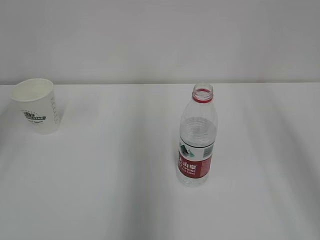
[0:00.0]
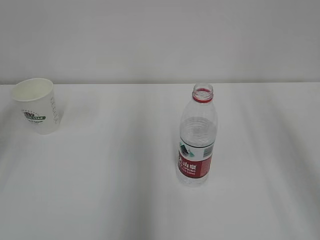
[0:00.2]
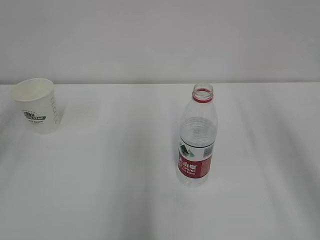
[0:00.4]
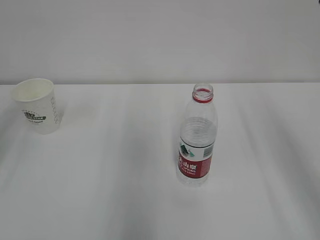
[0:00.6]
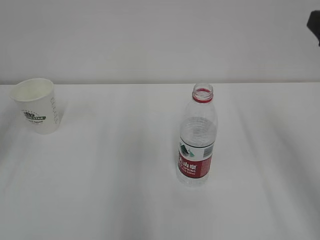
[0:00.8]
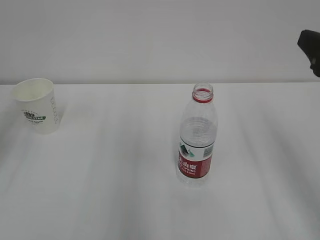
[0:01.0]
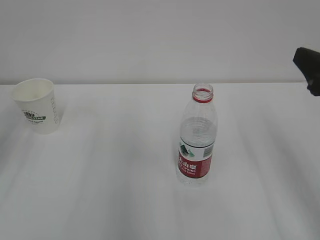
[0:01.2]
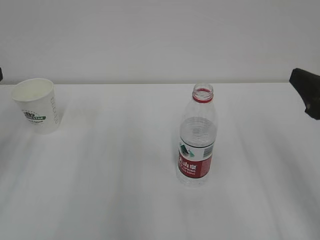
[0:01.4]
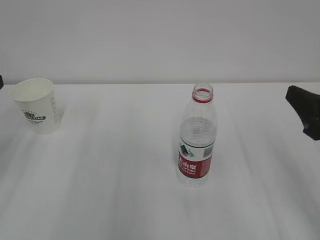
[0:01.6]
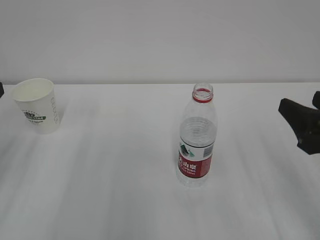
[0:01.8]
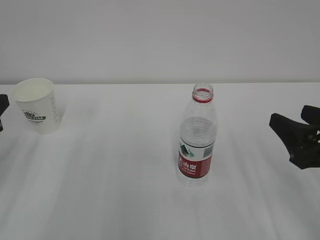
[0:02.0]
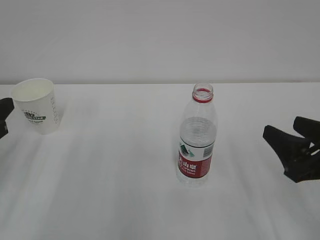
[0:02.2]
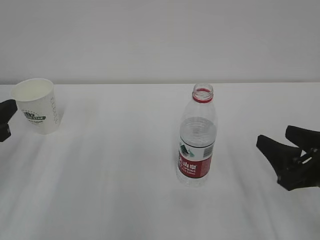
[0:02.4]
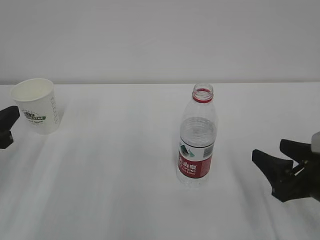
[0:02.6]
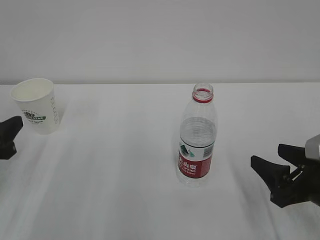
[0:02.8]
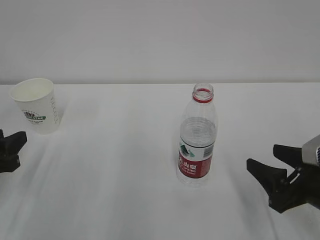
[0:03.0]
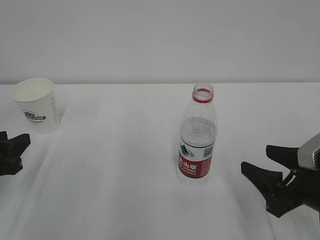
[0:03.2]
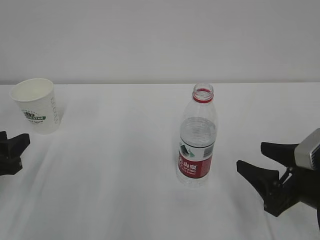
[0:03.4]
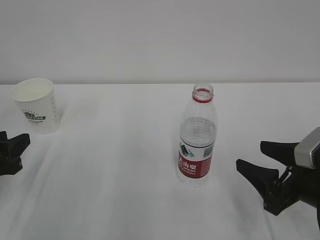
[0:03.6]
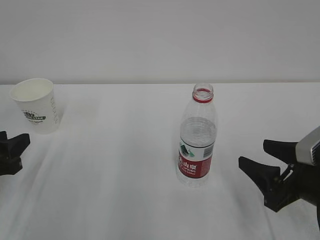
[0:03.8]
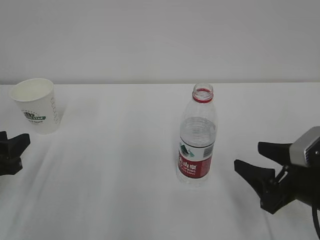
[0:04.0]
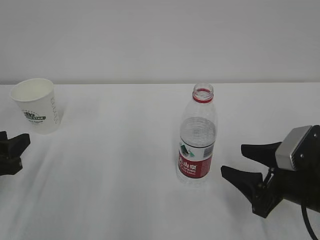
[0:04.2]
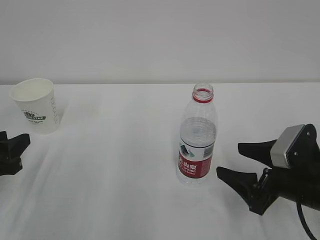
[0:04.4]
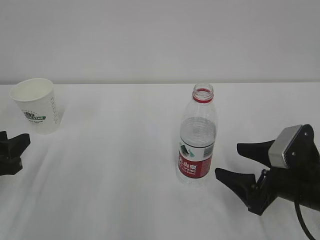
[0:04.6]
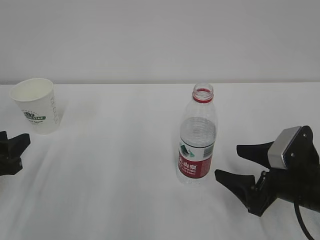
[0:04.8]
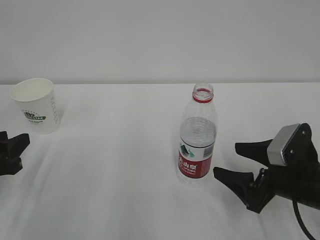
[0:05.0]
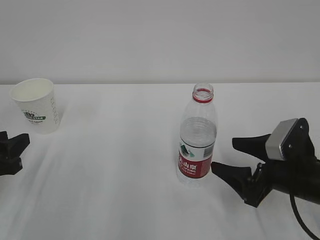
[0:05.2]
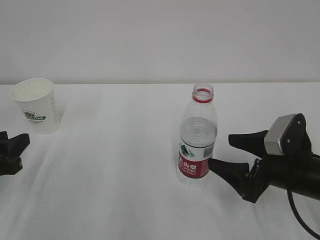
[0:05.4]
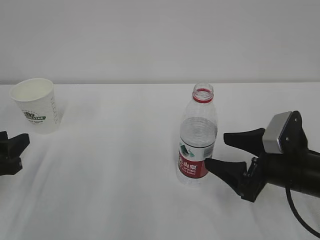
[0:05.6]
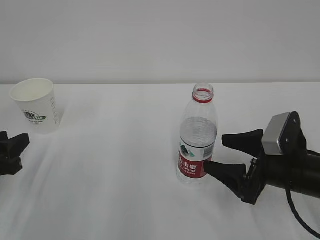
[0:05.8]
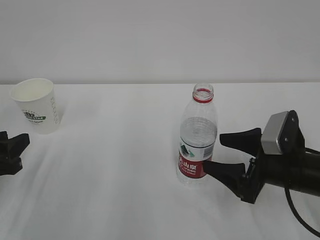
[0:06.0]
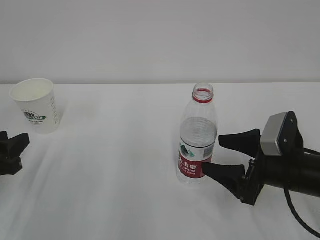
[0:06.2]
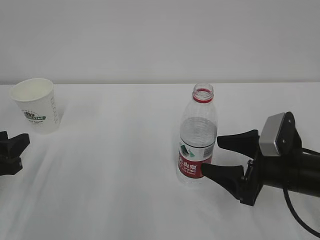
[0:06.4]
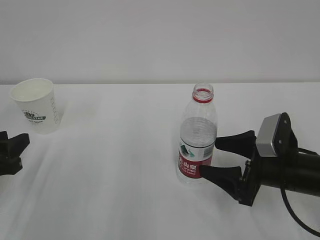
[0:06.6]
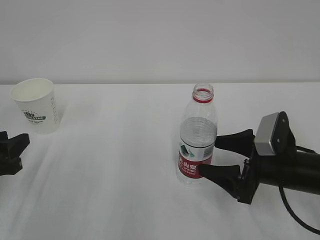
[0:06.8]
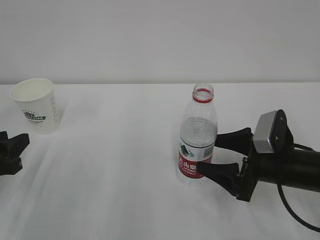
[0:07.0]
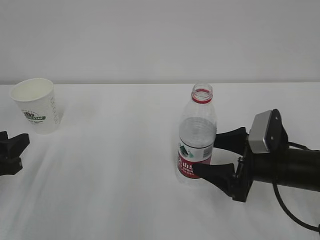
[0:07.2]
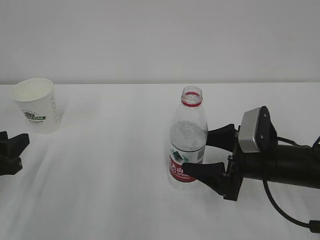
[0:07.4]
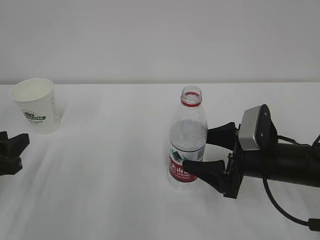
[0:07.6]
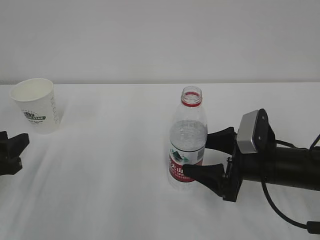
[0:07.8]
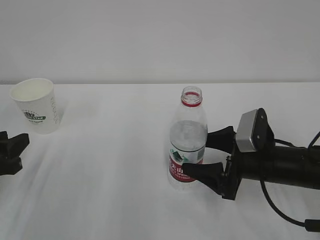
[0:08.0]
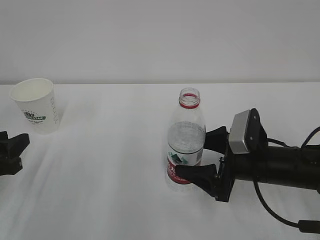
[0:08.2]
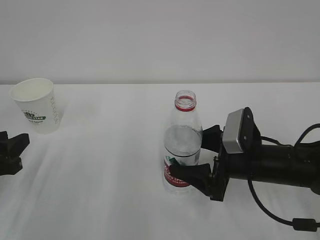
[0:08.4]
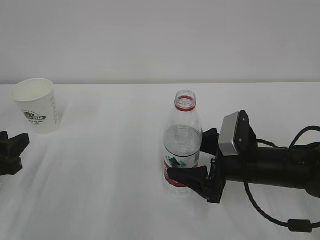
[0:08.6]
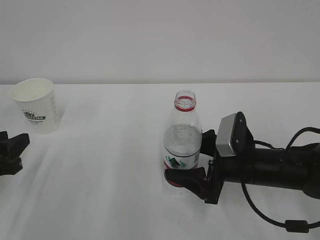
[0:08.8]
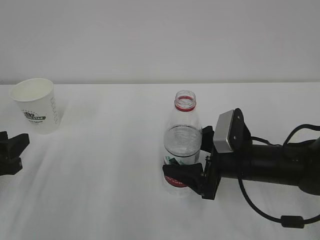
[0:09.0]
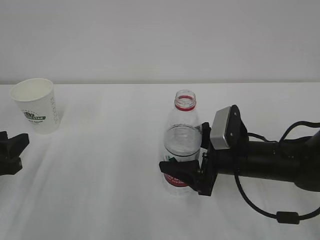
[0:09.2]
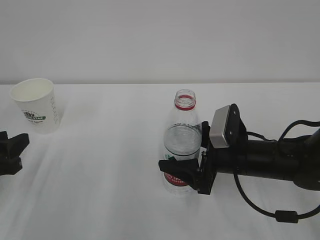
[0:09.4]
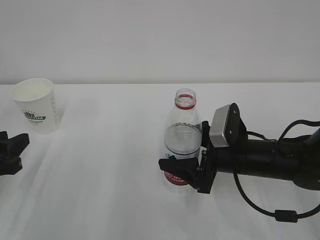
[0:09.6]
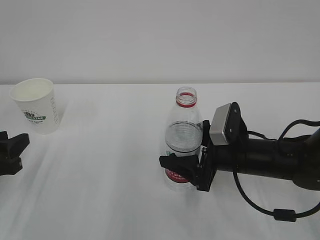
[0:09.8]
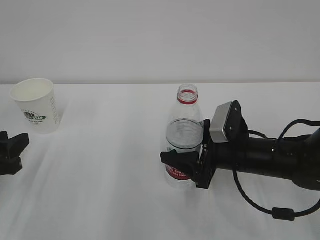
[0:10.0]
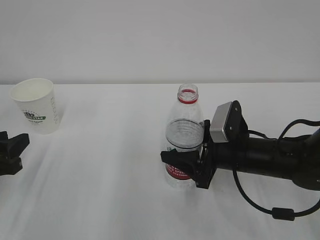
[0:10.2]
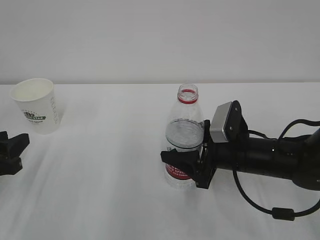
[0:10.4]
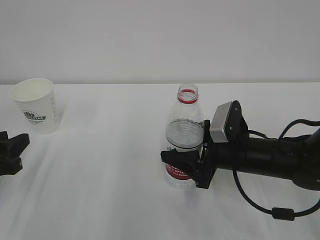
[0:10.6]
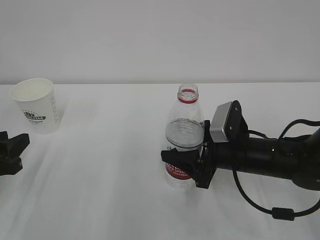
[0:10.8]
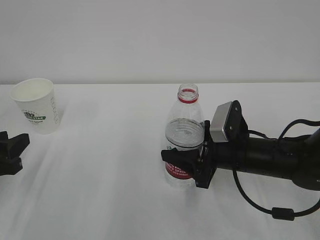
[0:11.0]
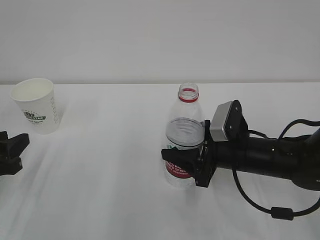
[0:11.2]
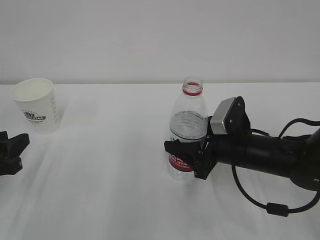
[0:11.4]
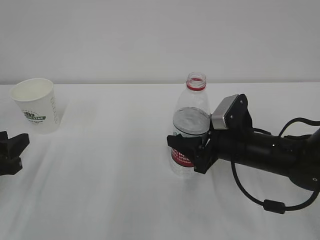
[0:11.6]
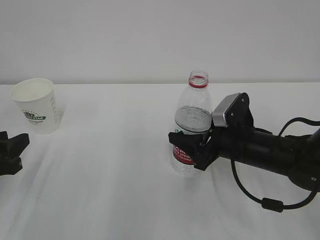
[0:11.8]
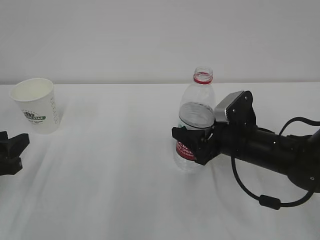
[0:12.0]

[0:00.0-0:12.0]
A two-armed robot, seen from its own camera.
0:00.0 to 0:01.6: The right gripper moves downward, roughly 20 cm.
0:01.6 to 0:03.0: The two grippers go some 10 cm downward.
0:03.0 to 0:04.4: The right gripper opens up.
0:04.4 to 0:07.6: There are only small adjustments of the grippers.
0:07.6 to 0:09.0: The grippers stay close to where they were, moving slightly.
0:09.0 to 0:10.4: The right gripper closes its fingers.
0:10.4 to 0:12.0: The grippers make only small movements.

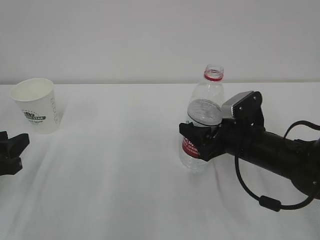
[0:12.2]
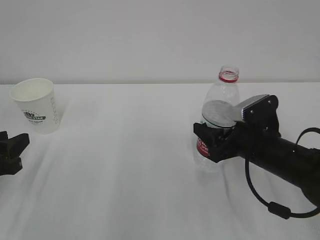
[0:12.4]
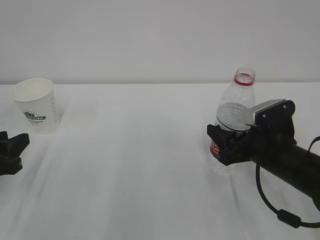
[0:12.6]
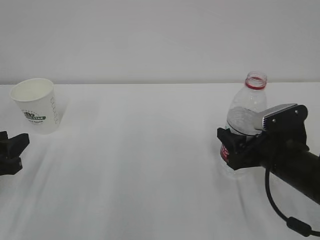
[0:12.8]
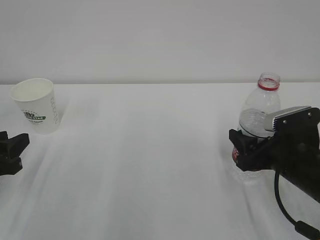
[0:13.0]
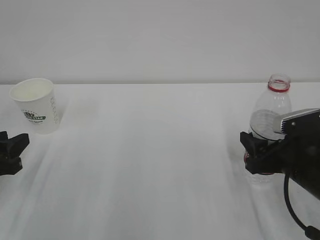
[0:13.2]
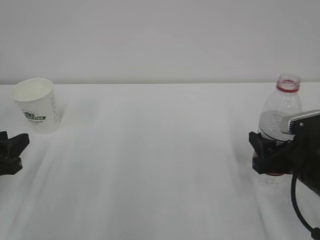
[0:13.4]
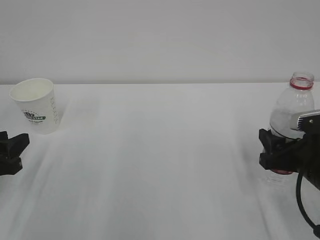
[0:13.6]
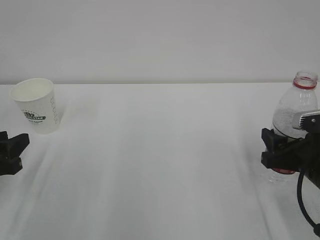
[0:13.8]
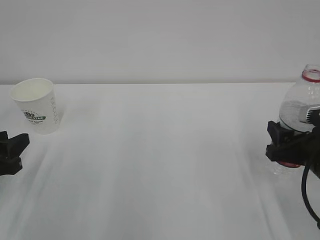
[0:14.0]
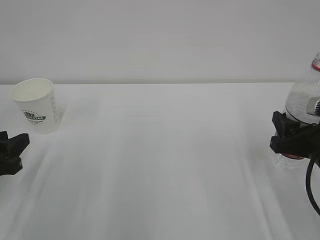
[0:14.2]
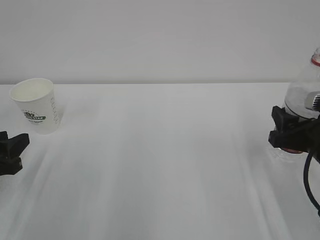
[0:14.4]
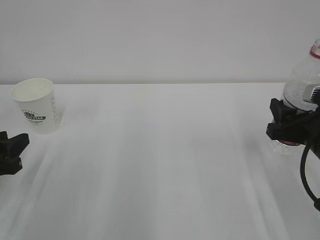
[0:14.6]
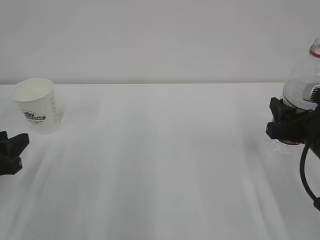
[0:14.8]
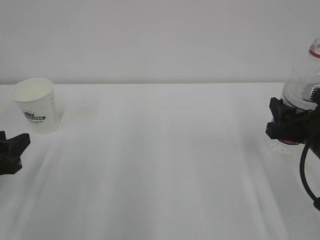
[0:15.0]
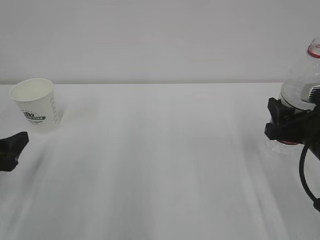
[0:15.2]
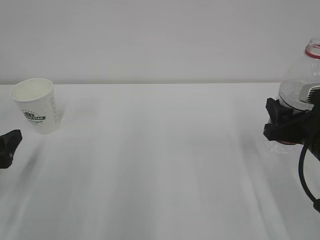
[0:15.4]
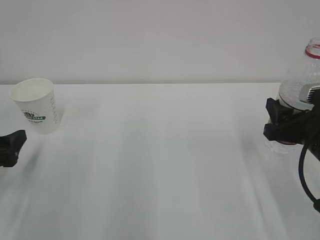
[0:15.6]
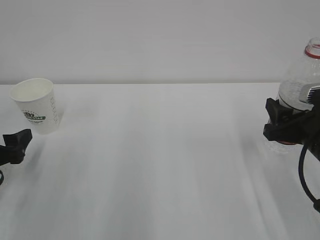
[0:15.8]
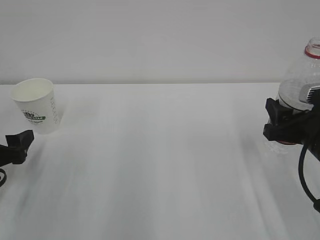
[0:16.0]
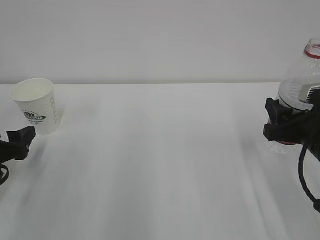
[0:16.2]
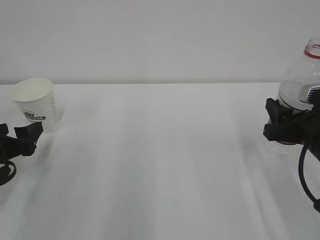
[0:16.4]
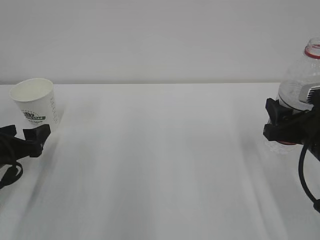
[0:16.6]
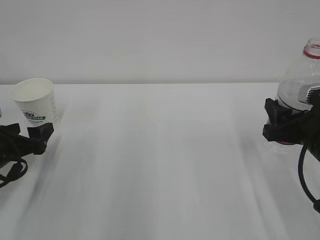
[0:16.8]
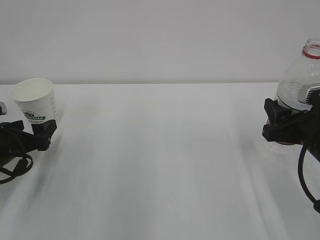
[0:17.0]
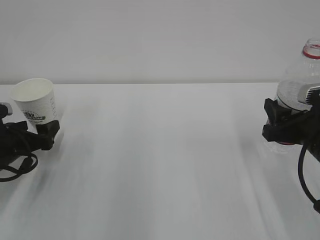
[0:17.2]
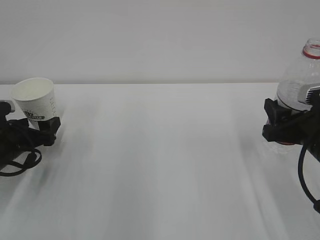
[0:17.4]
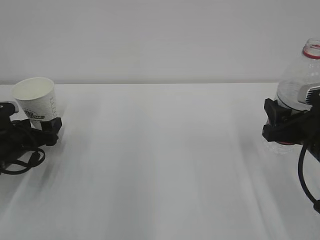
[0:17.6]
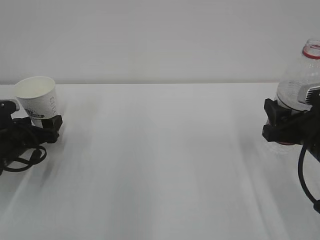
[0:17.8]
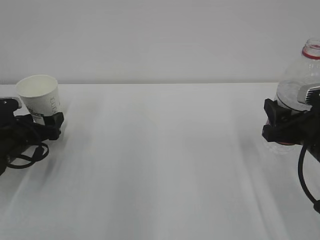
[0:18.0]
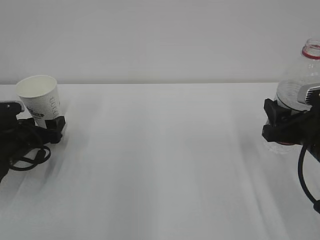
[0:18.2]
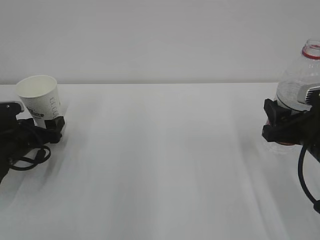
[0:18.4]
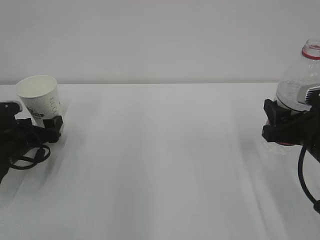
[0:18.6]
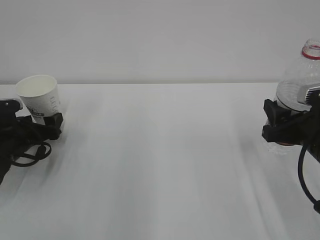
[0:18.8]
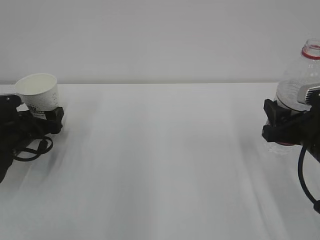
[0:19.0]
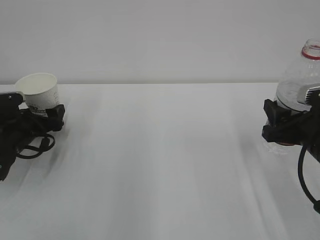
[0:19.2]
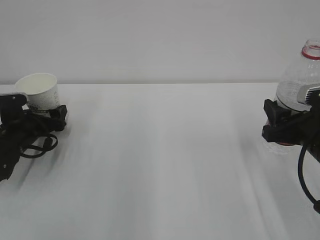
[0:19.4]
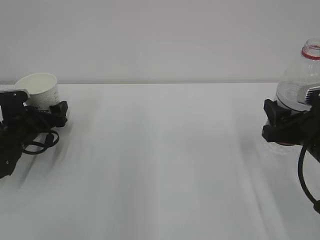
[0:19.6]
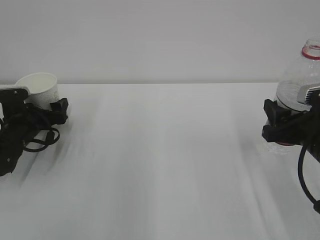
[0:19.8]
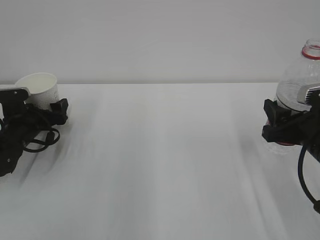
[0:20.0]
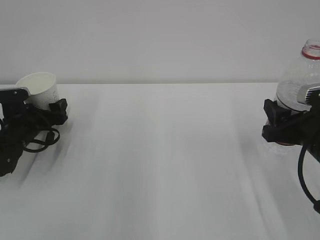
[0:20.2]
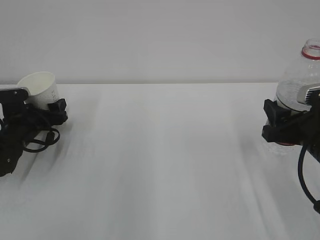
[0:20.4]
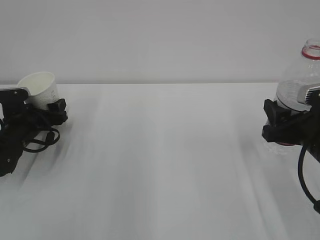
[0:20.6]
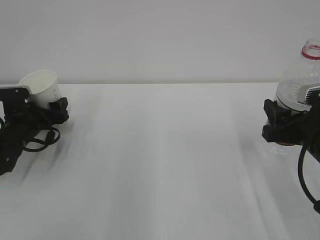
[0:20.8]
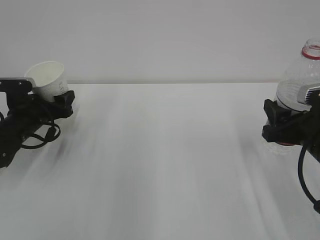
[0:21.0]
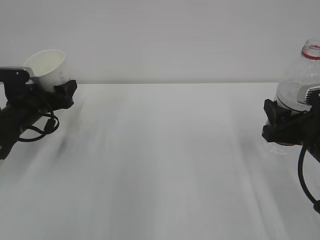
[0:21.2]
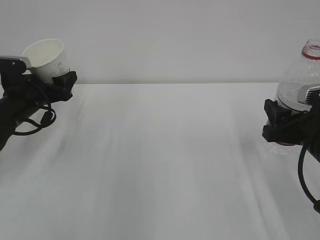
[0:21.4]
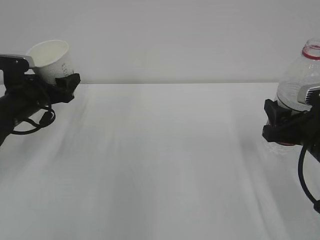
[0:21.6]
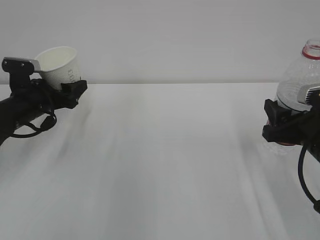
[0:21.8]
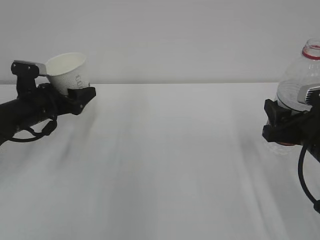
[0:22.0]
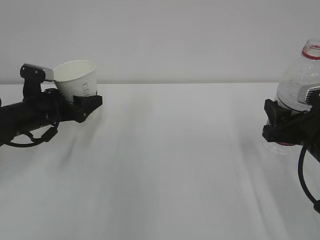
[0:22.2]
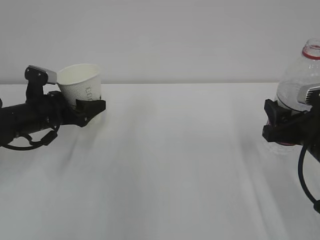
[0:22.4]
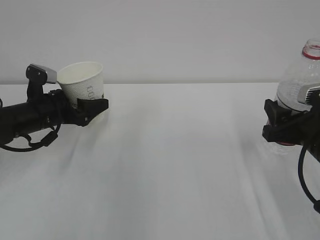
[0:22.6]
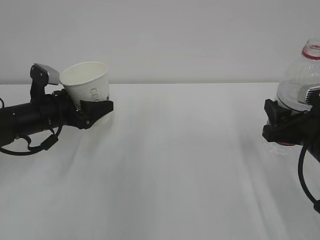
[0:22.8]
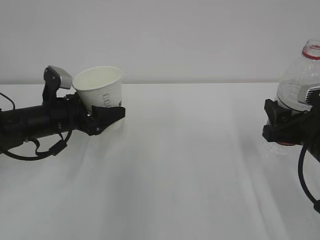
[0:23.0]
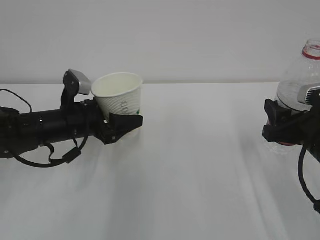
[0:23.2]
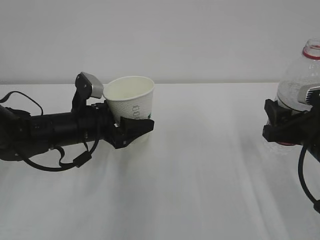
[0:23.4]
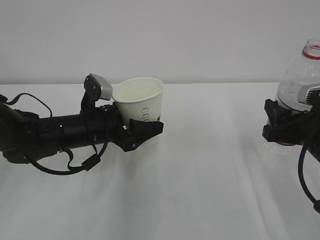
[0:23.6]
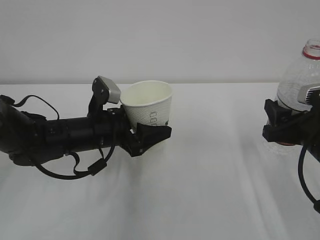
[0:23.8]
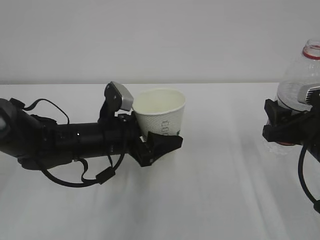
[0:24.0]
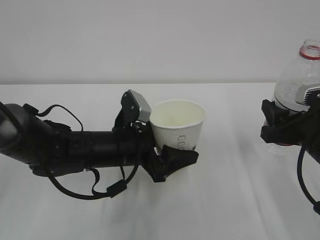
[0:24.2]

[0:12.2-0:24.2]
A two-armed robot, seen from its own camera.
0:12.2 to 0:13.8: The right gripper is displaced to the right and backward by approximately 10 cm.
0:15.2 to 0:16.6: The left gripper shifts by roughly 5 cm.
0:16.6 to 0:18.2: The left gripper goes some 5 cm forward.
0:18.2 to 0:19.8: There are only small adjustments of the grippers.
0:19.8 to 0:21.2: The left gripper closes up.
0:22.6 to 0:24.2: The left gripper is displaced to the right and backward by some 20 cm.
